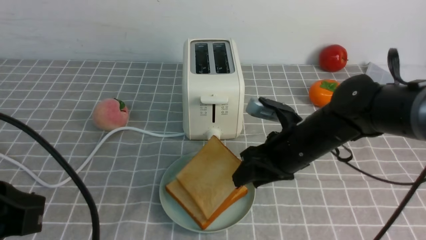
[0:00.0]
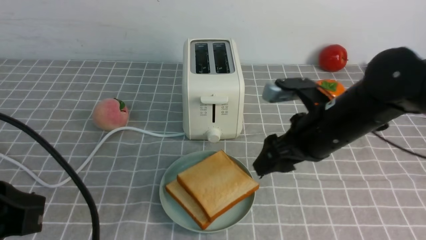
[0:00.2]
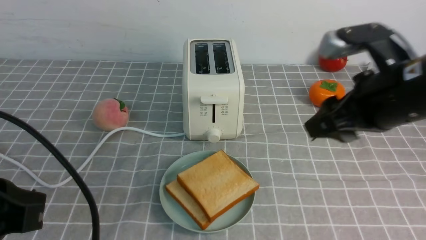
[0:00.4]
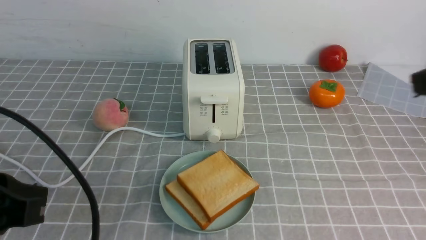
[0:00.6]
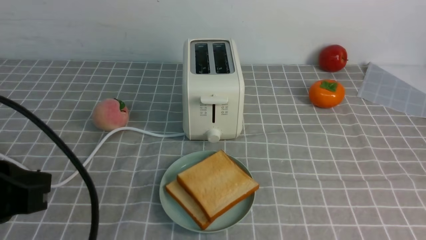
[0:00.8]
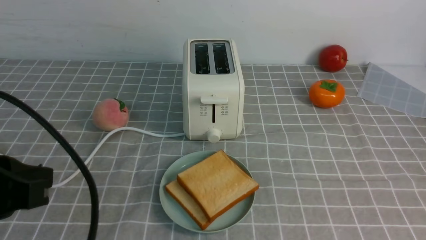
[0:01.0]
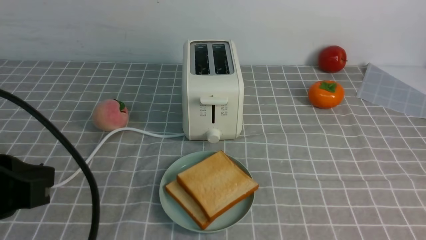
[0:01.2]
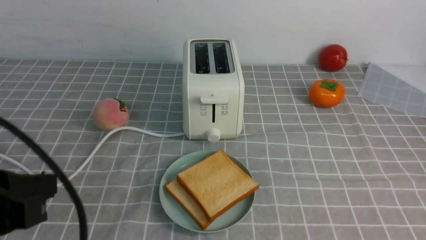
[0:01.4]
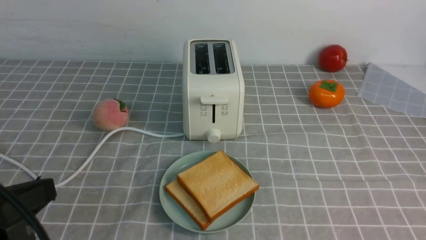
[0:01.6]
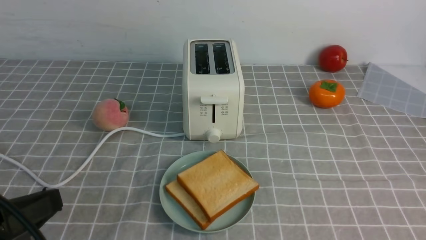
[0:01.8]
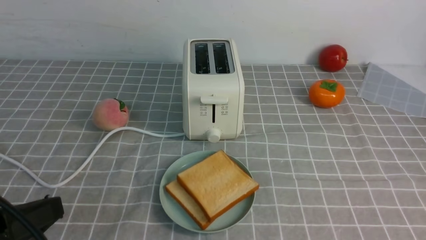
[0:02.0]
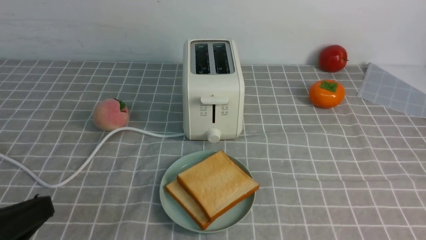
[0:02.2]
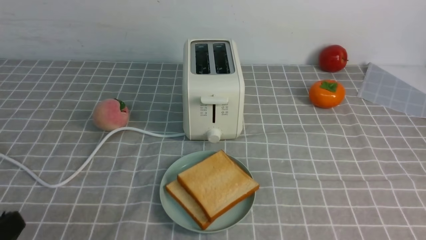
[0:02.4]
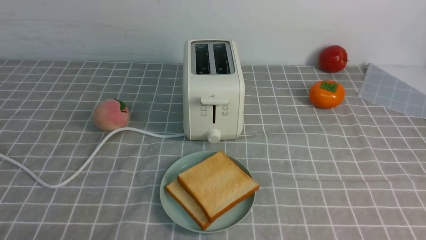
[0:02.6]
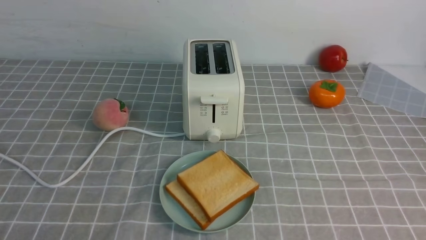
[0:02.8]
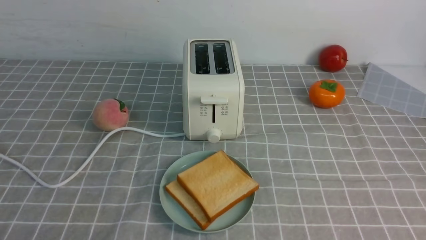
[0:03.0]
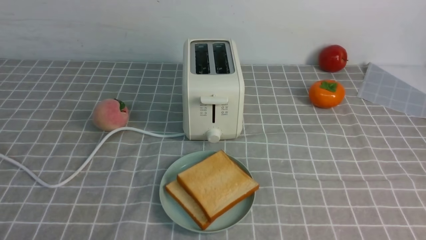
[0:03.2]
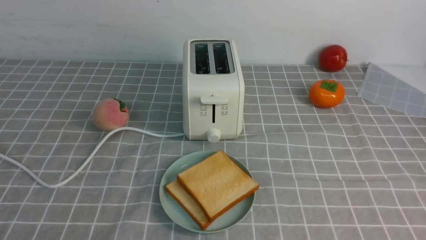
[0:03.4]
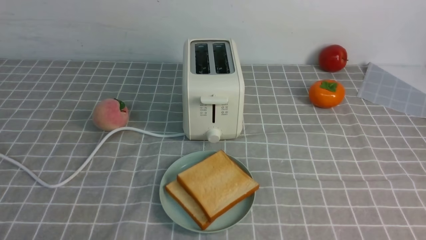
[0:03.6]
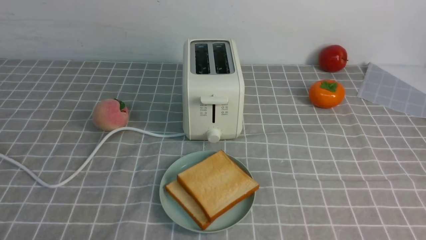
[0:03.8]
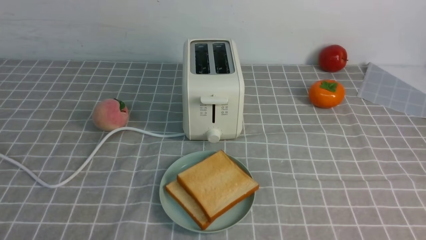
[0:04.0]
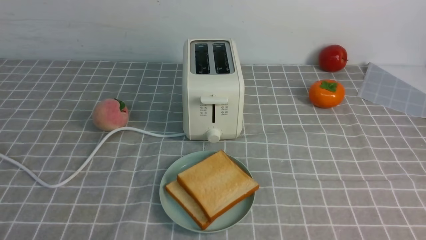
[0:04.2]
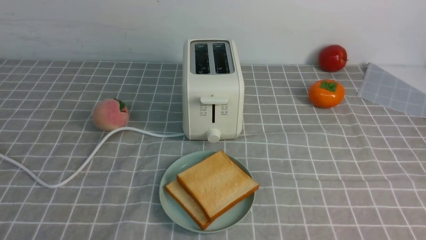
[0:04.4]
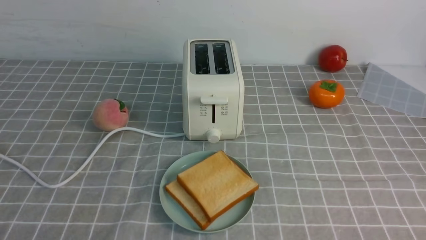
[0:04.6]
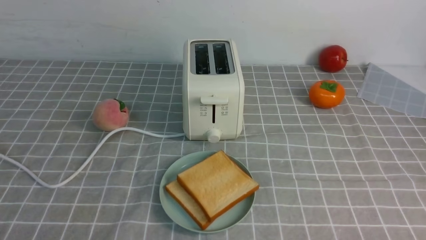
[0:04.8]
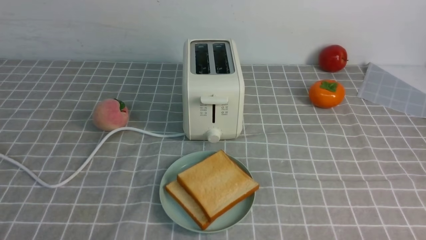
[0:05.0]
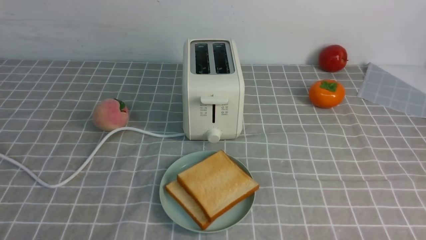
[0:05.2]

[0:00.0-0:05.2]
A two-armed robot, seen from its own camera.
Task of the whole recording: take toasted bread from bread machine on grey coffee table place on plate.
0:00.0 to 0:01.8: The right gripper is displaced backward and to the right by roughly 35 cm, and closes its fingers.
0:01.8 to 0:03.4: The left gripper goes some 15 cm downward.
